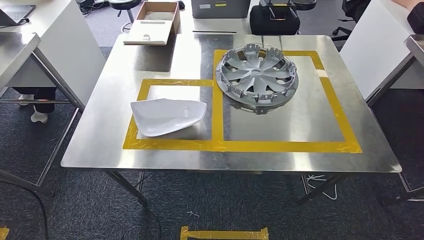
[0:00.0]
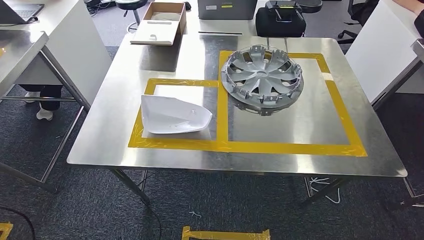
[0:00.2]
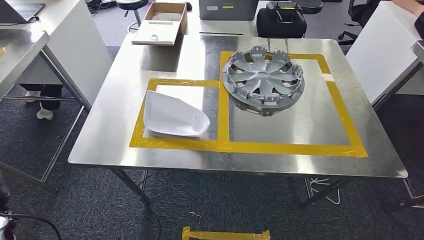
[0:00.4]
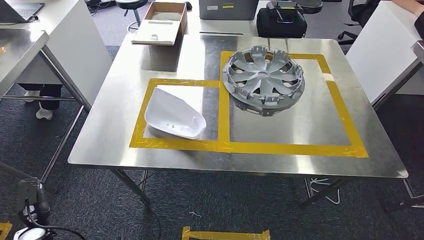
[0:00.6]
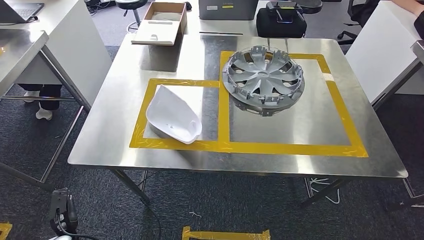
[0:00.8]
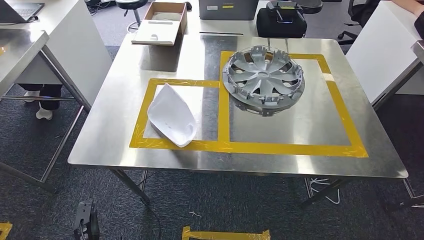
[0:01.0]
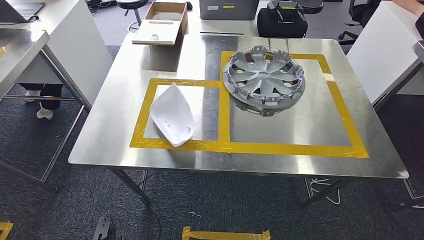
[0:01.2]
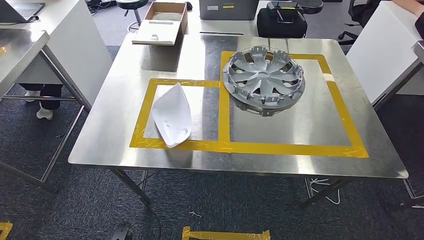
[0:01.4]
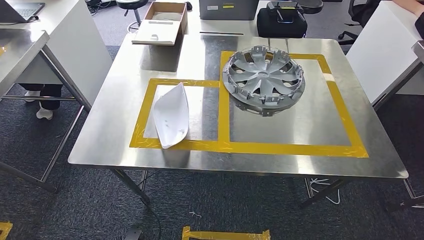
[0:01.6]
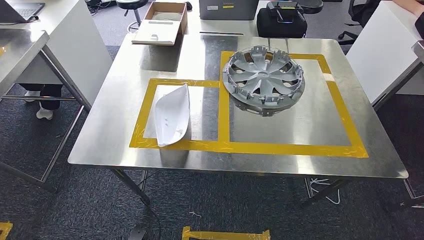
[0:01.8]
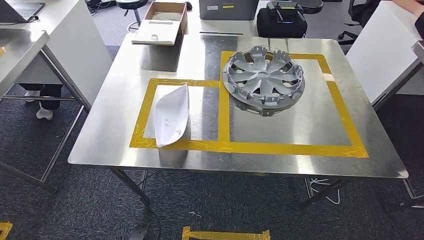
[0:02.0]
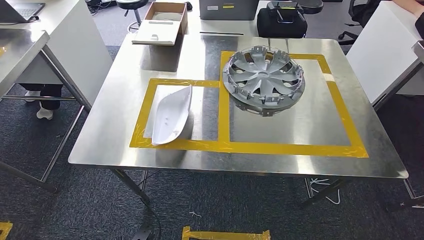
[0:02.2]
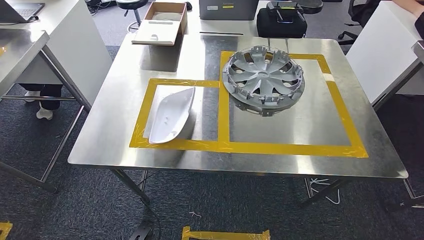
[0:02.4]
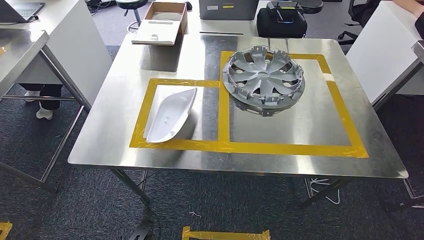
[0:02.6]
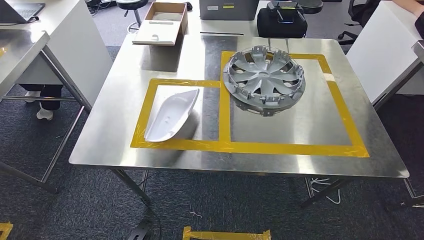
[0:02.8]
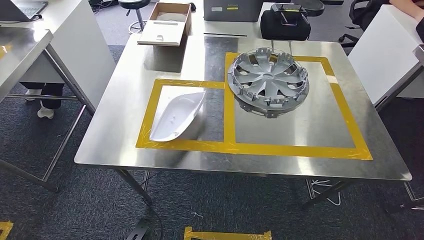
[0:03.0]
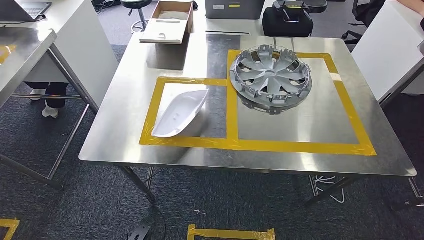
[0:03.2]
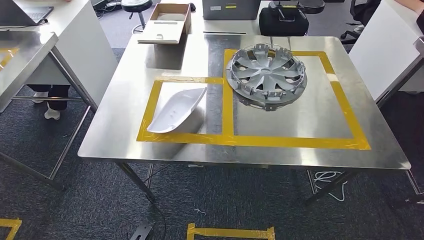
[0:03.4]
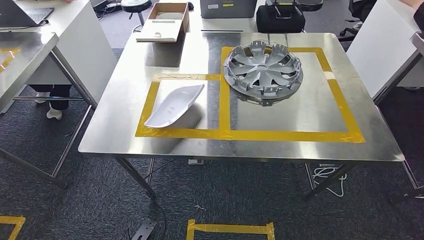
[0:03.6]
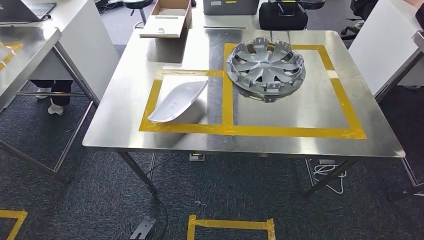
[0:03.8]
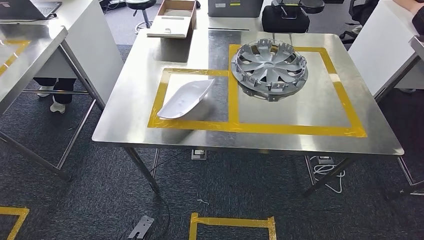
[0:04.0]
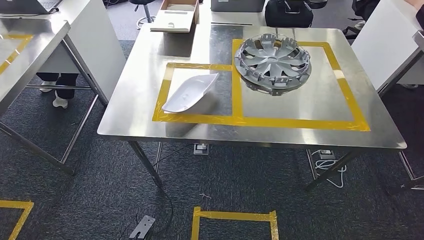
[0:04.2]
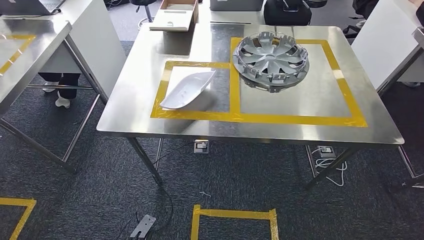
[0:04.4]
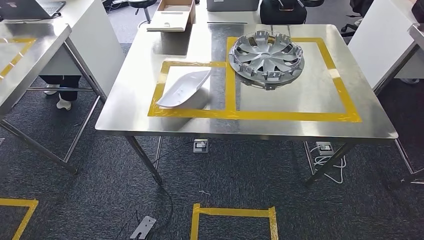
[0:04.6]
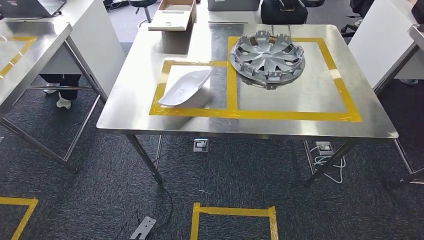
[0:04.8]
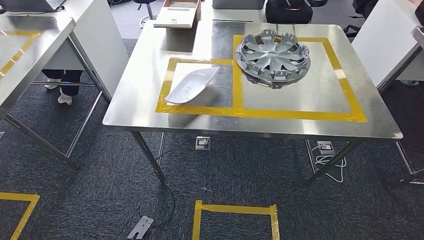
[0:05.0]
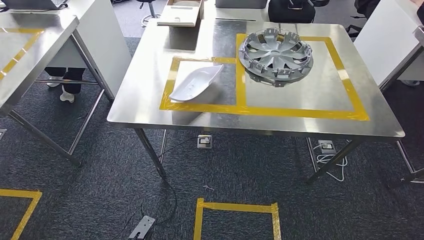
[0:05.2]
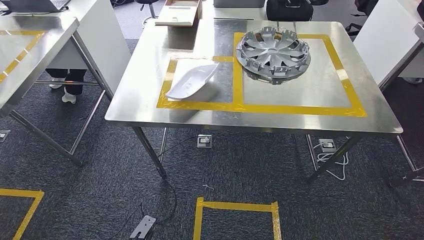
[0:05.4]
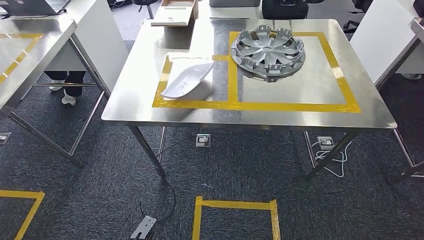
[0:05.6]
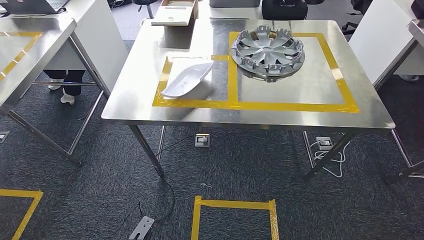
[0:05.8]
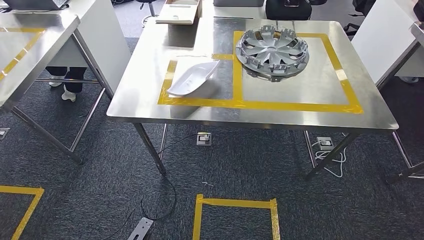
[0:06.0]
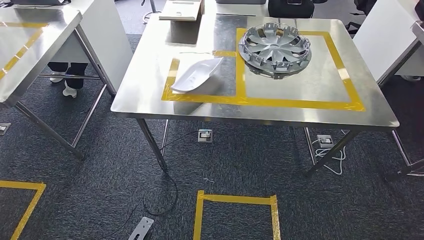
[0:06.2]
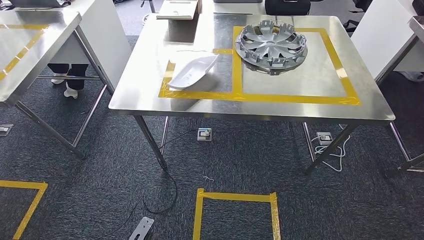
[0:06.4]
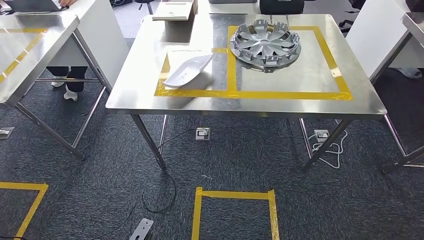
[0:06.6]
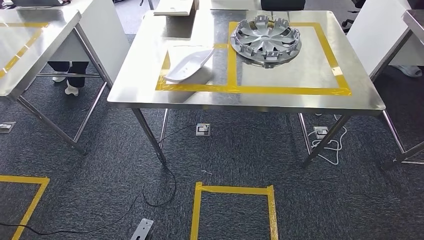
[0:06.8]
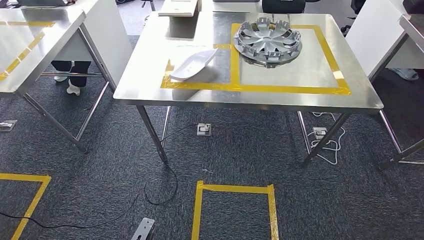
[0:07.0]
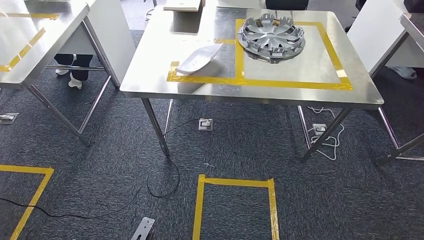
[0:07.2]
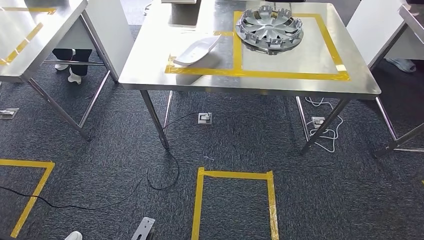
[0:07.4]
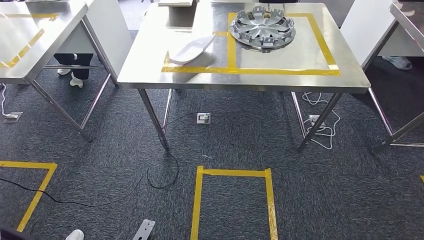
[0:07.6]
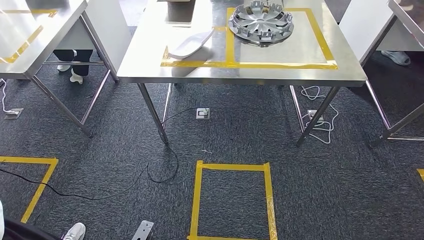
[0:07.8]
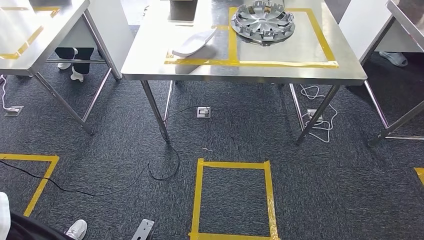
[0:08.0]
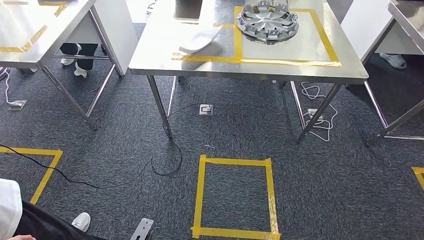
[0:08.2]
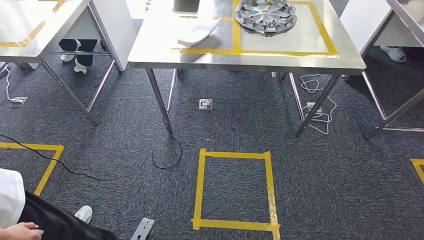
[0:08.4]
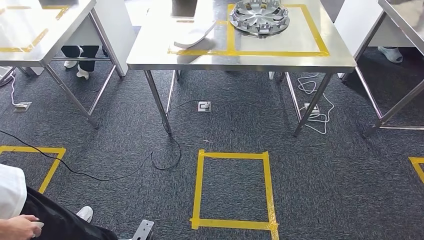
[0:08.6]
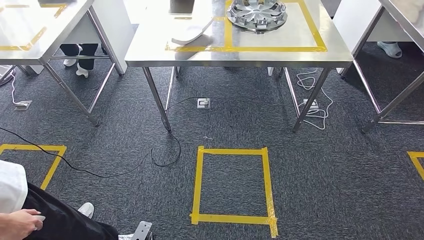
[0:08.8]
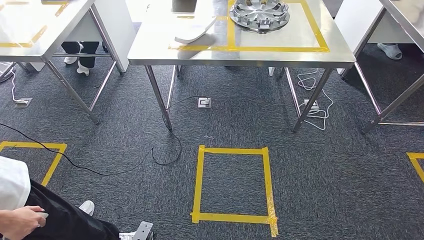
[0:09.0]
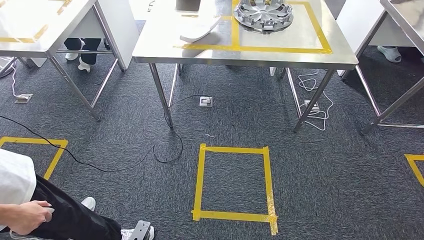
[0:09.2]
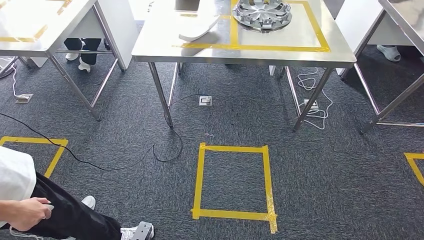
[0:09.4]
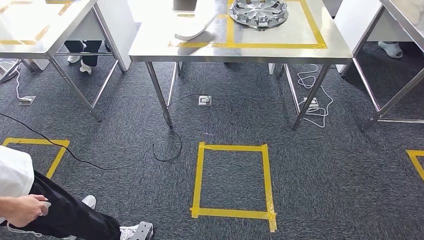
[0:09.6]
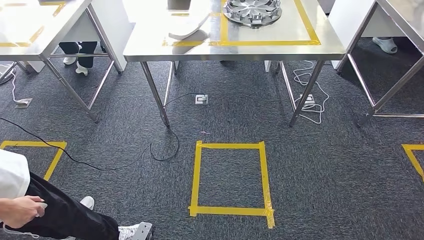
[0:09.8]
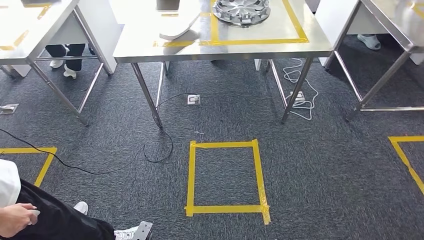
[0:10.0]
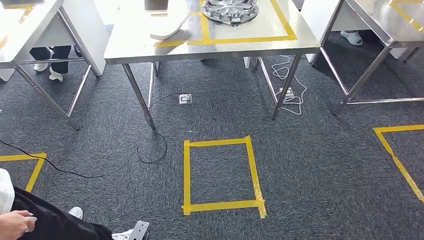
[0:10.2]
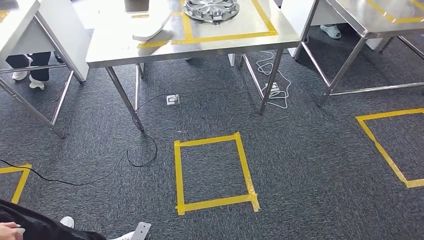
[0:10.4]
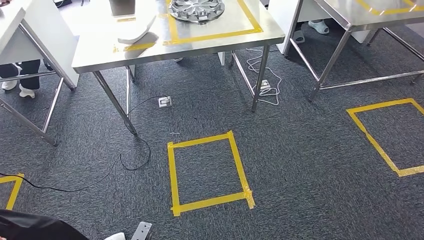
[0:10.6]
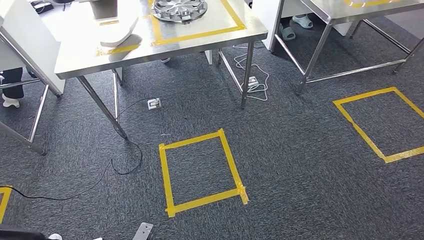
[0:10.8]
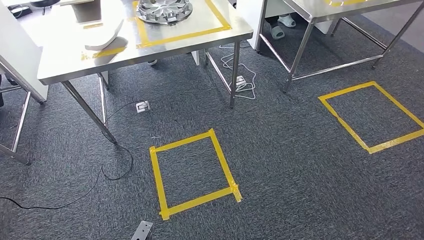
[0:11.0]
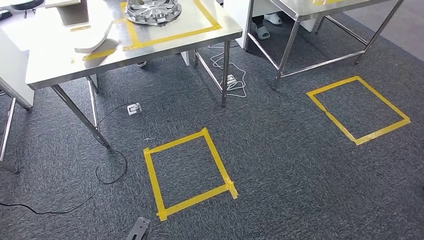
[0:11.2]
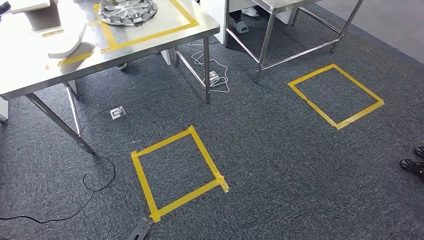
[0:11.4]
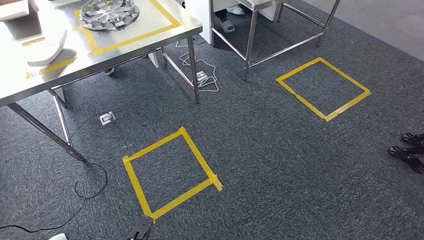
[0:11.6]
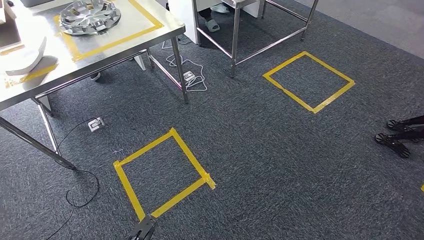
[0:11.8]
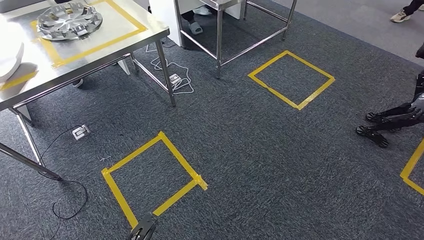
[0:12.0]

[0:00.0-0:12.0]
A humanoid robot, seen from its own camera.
0:01.6 to 0:03.0: There are only small adjustments of the hands.

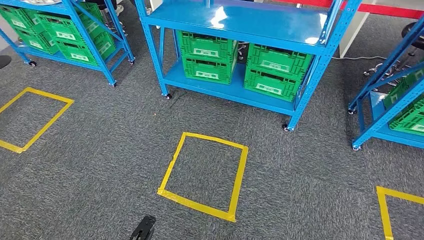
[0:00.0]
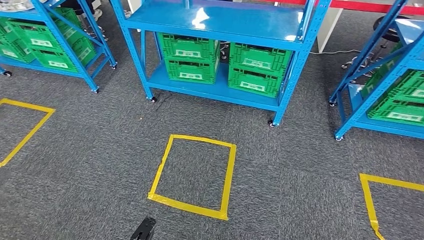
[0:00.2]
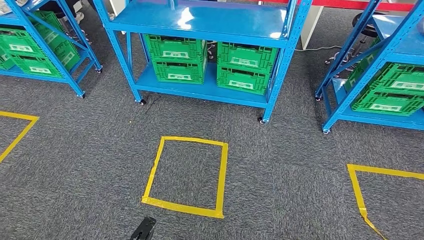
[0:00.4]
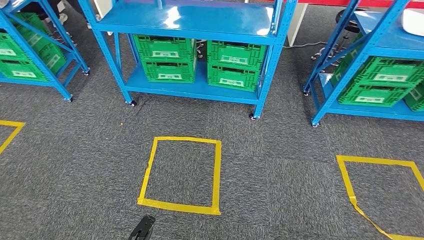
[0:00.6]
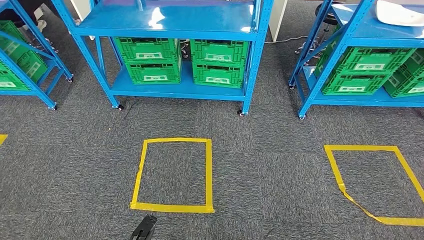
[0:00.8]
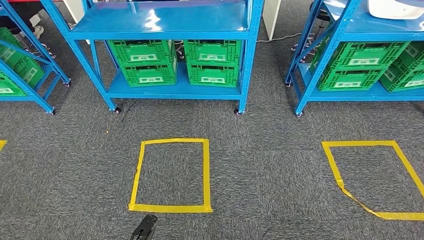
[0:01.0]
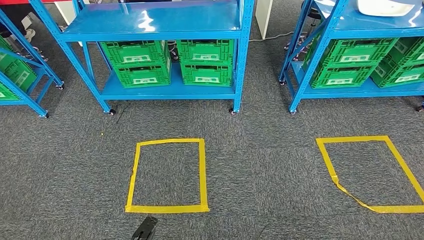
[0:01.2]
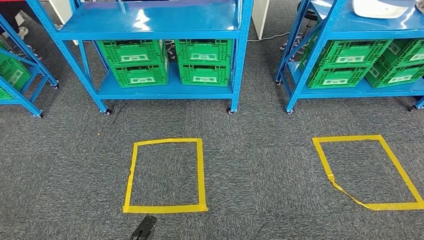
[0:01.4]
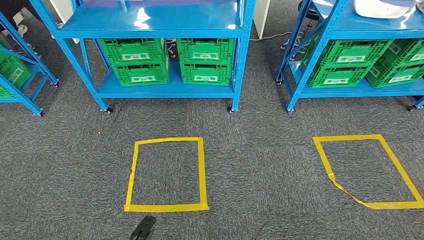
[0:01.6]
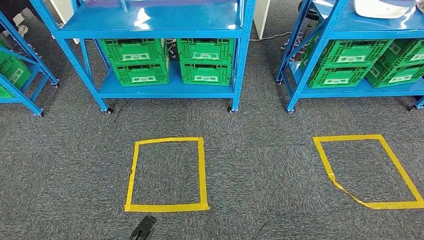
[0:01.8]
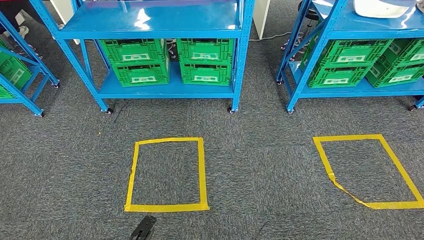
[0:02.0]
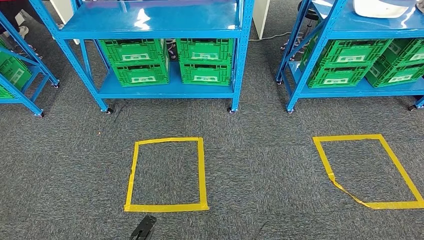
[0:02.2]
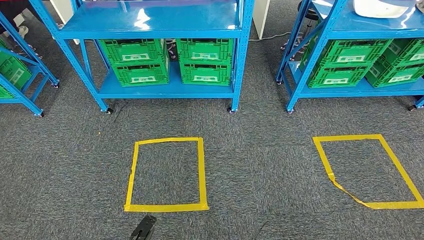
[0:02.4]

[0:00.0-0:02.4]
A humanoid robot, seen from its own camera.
Step, 0:00.0 to 0:02.4: Return to the initial position at the workbench.
0:01.2 to 0:02.4: Both hands stay put.
